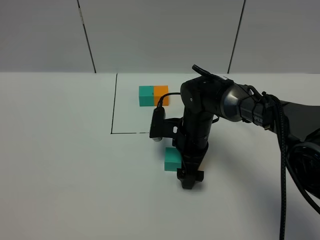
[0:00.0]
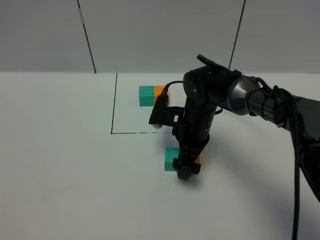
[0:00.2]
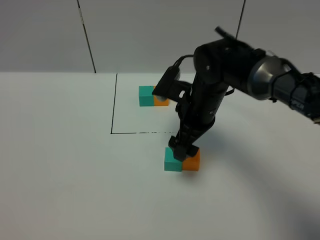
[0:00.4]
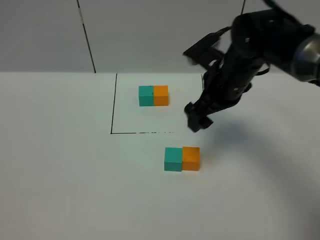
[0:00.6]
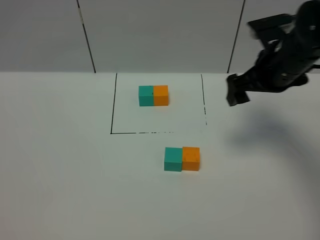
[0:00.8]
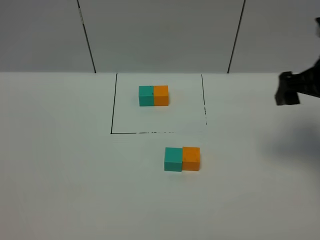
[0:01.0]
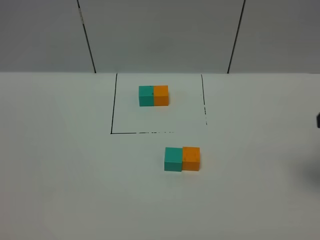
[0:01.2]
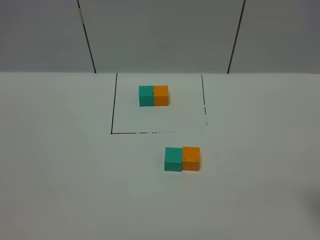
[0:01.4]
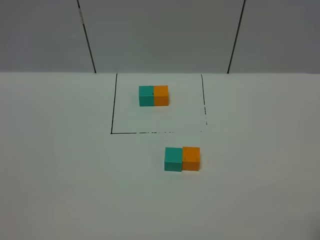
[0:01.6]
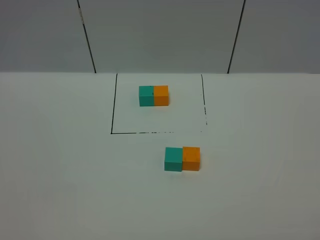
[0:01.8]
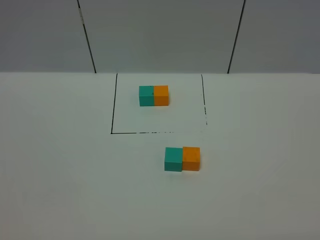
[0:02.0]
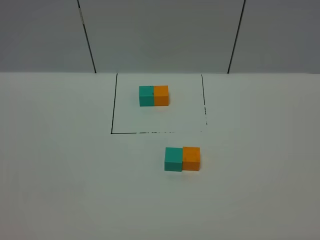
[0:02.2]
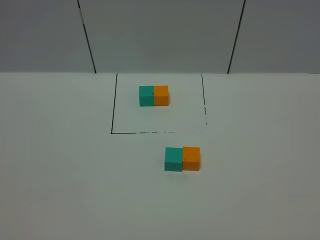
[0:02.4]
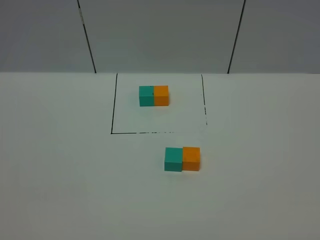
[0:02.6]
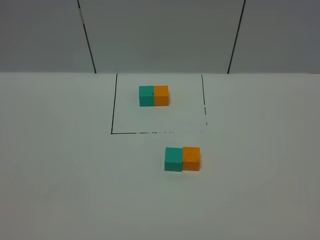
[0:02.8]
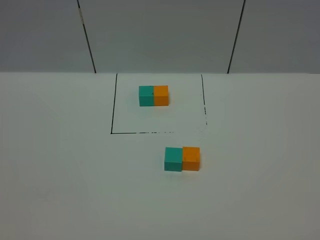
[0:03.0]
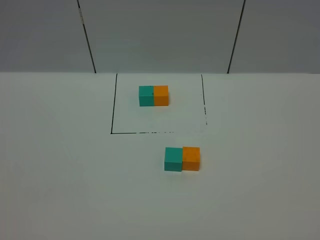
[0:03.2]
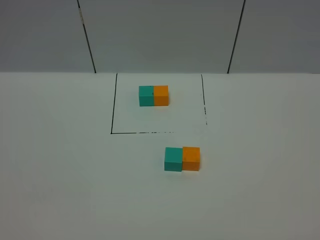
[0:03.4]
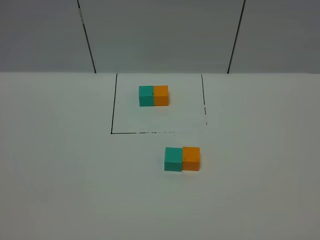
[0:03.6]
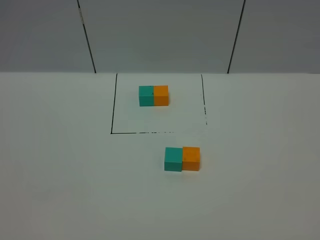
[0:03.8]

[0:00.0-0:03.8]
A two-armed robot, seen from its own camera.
Task of the whole recording: According to the building block template in front, assemble the scattered blocks together.
0:00.0 to 0:01.2: The right gripper heads to the right, upward and backward, covering some 35 cm.
0:02.6 to 0:03.8: The two grippers keep their place.
